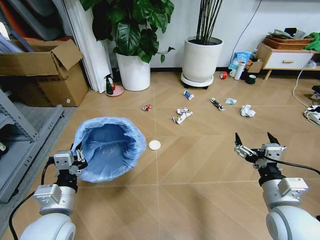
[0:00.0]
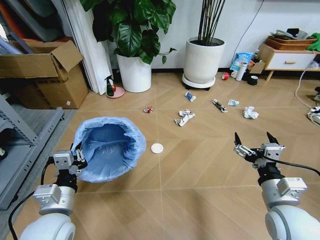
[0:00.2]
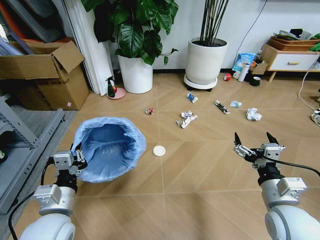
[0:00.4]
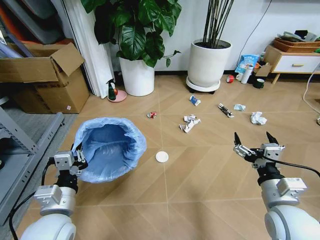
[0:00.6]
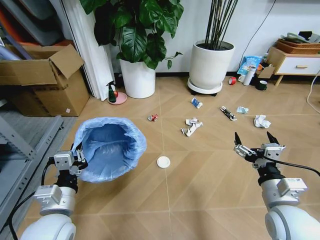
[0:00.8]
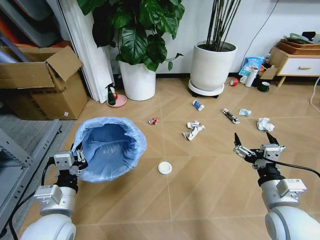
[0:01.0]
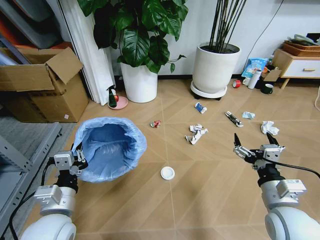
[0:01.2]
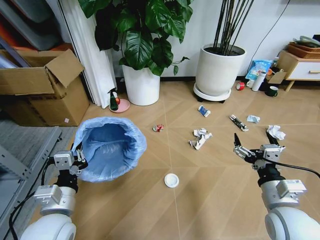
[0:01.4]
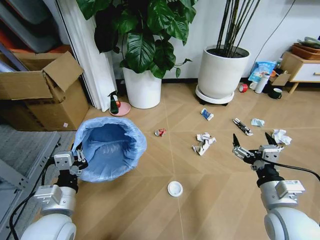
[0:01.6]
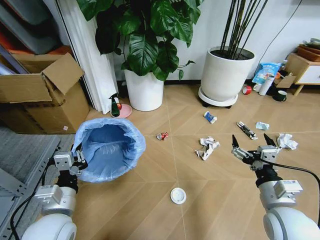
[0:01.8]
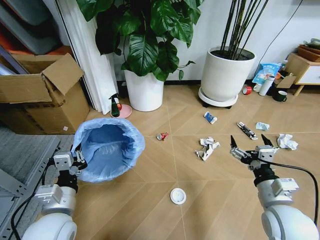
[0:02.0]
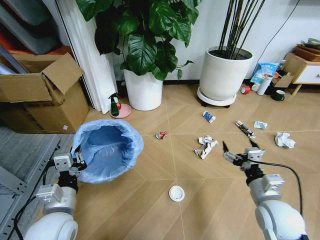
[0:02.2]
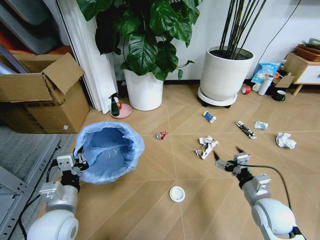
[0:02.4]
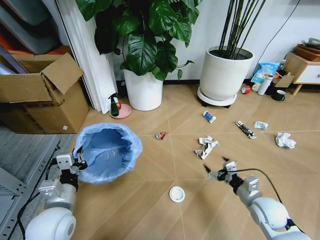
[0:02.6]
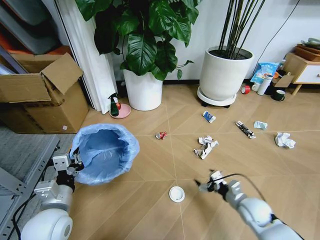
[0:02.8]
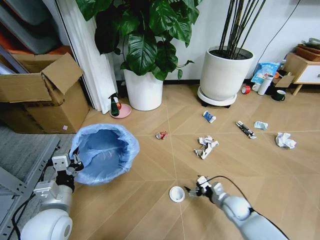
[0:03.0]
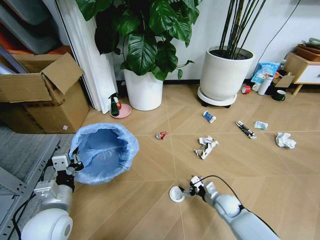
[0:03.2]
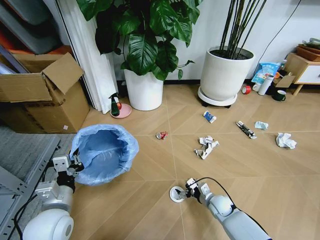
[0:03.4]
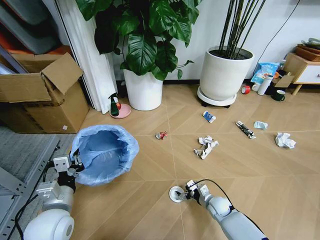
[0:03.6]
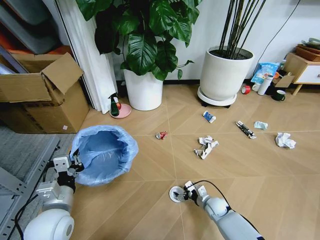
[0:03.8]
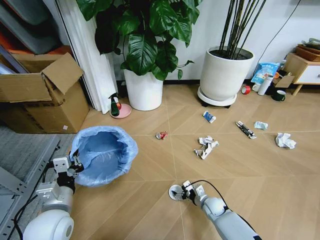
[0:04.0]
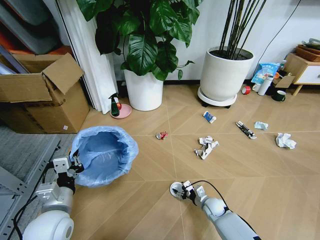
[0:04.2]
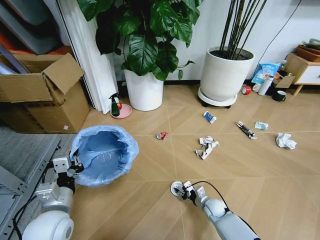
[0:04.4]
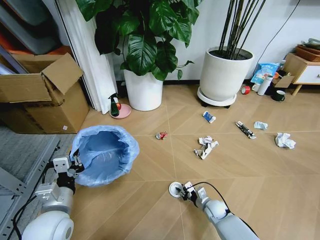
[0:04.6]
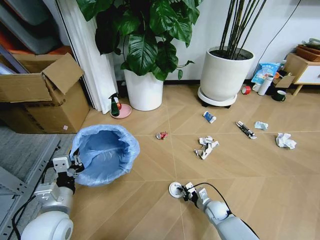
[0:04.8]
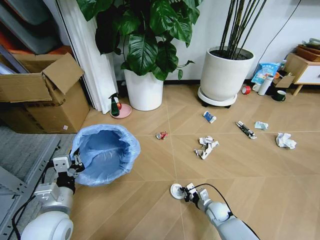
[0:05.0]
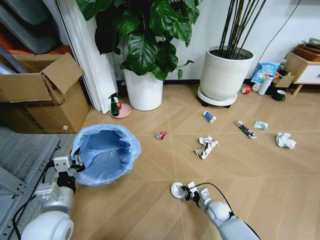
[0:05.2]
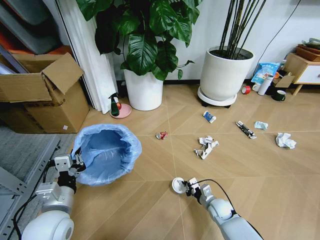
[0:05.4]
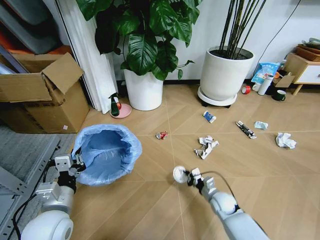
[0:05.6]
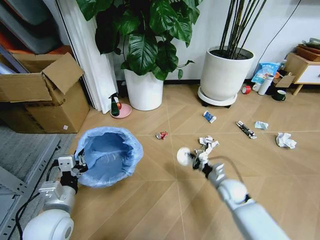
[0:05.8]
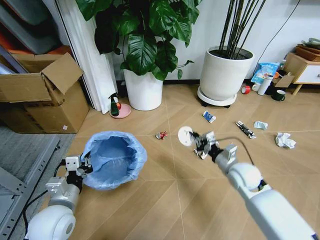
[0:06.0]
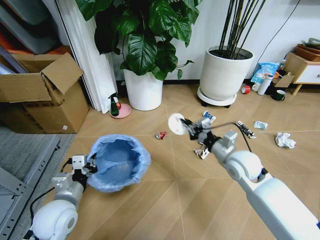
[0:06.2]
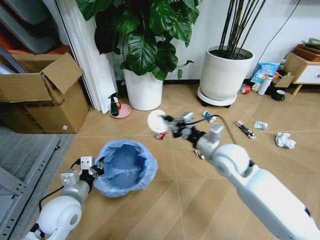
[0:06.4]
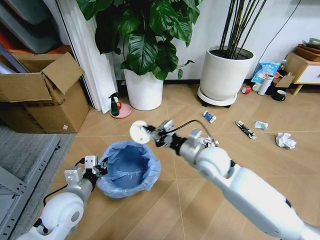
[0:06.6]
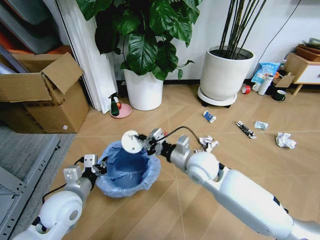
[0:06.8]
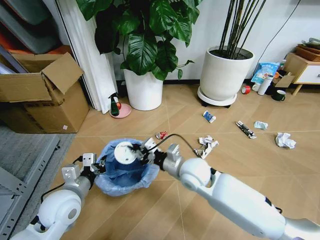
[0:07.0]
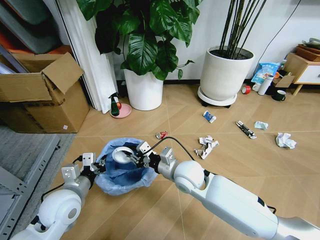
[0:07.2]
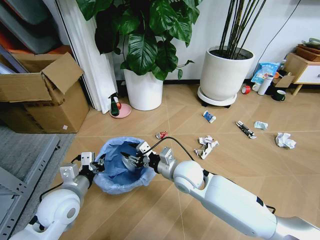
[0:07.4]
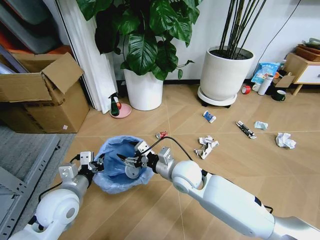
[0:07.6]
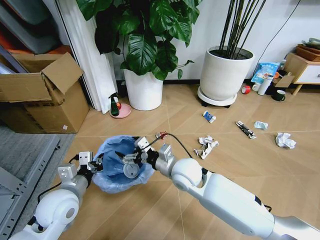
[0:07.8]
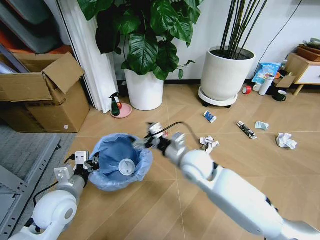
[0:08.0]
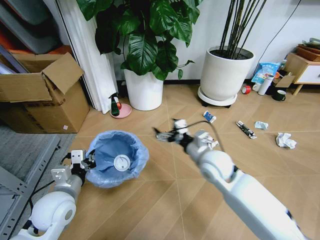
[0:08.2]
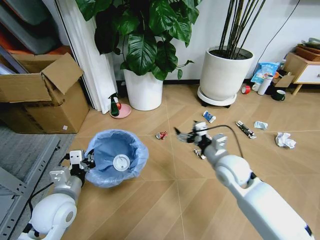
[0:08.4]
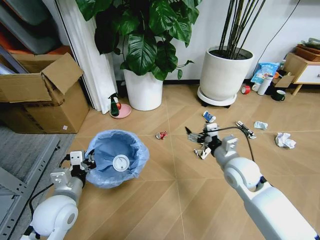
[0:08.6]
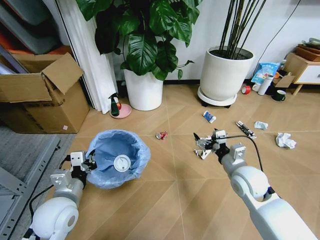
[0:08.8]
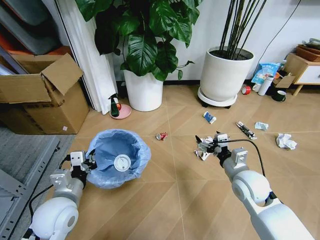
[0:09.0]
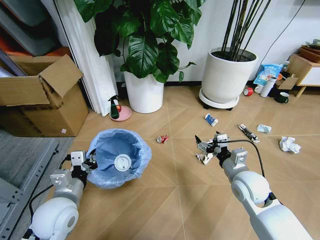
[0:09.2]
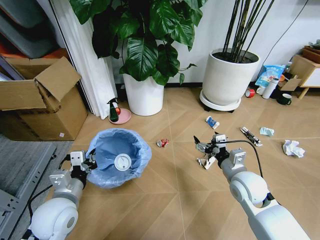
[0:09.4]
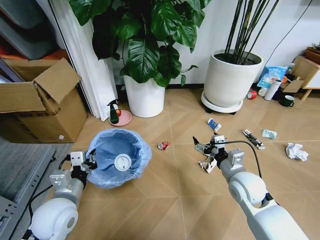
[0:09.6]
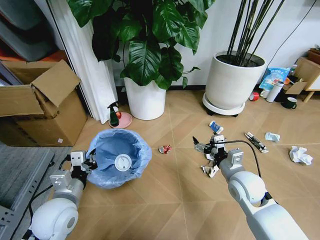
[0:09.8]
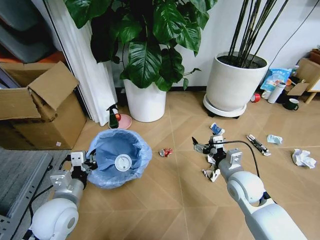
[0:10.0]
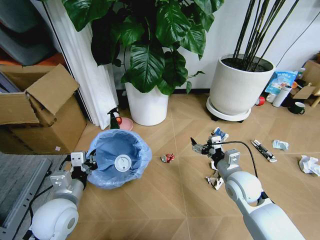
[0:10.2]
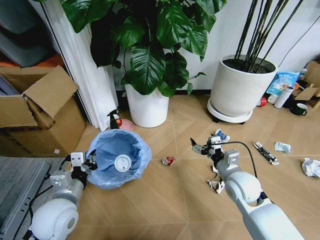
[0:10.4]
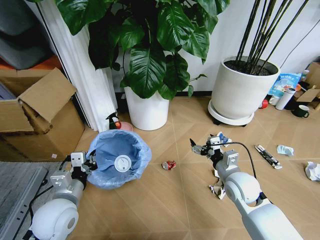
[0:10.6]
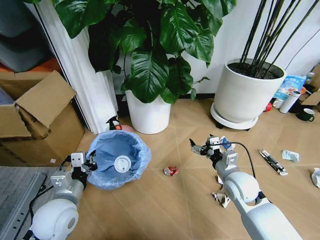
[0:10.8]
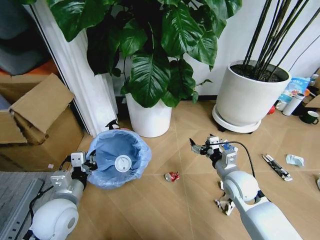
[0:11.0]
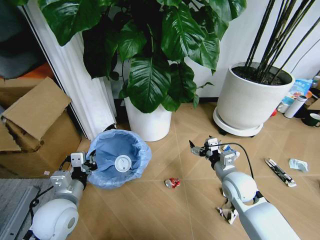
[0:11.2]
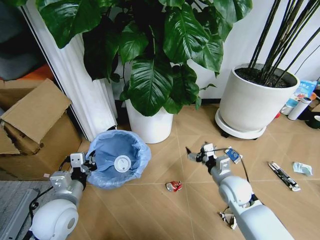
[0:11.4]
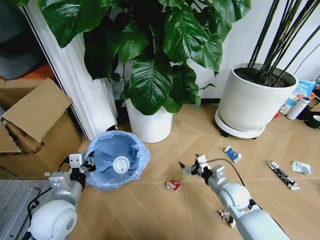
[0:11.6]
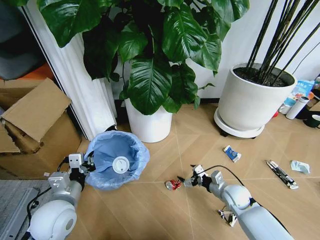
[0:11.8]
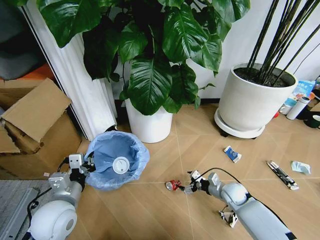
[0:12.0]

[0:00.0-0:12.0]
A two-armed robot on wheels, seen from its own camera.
Task of the whole recording: Pick up the trash bin and place the garbage on the floor into it.
0:01.6 to 0:03.0: The right gripper travels downward and forward by approximately 25 cm.
0:03.0 to 0:04.4: The right gripper travels downward and to the left by roughly 10 cm, and closes.
0:04.4 to 0:06.0: The right gripper heads upward, covering approximately 25 cm, and closes up.
0:06.0 to 0:07.6: The right gripper goes about 20 cm to the left, and opens up.
0:07.6 to 0:09.0: The right gripper is displaced to the right by approximately 20 cm.
0:10.4 to 0:12.0: The right gripper is displaced downward by roughly 15 cm.

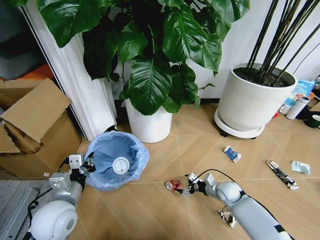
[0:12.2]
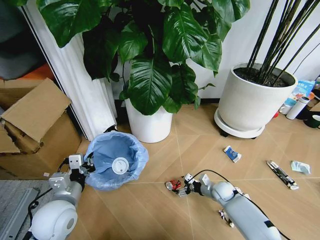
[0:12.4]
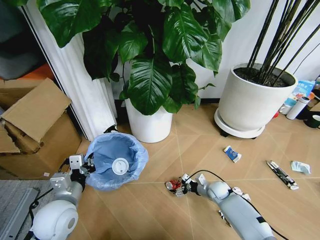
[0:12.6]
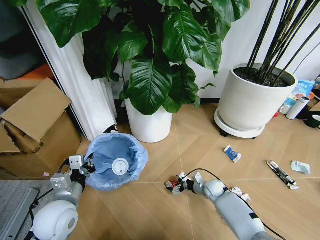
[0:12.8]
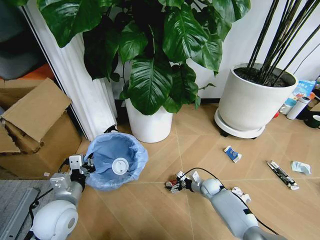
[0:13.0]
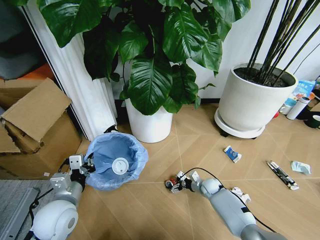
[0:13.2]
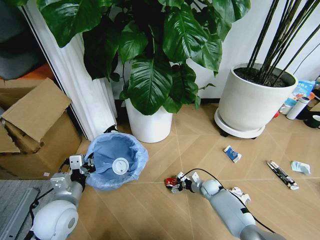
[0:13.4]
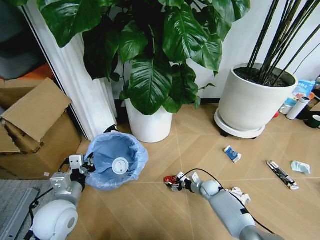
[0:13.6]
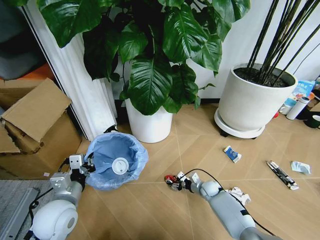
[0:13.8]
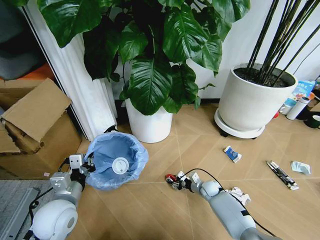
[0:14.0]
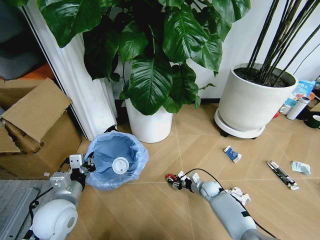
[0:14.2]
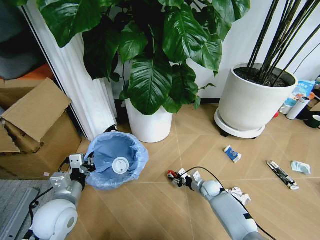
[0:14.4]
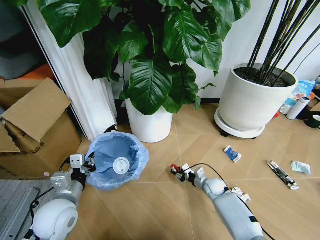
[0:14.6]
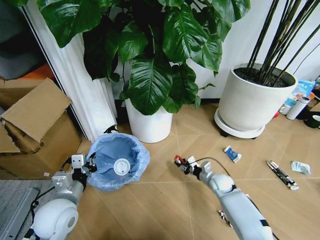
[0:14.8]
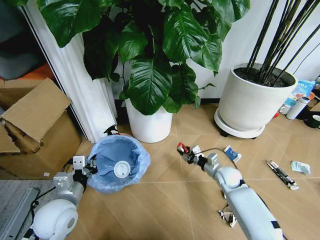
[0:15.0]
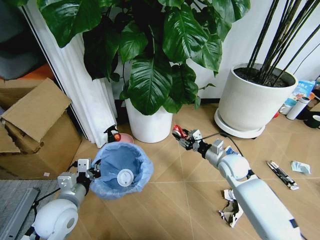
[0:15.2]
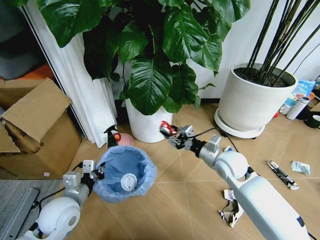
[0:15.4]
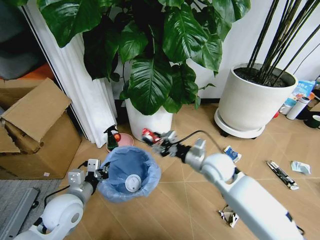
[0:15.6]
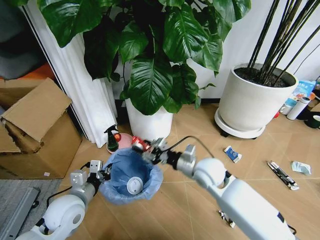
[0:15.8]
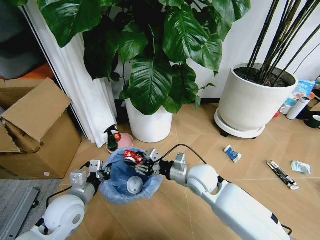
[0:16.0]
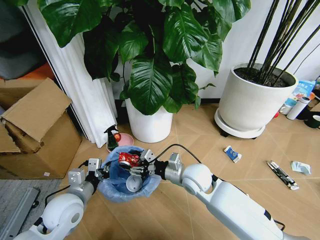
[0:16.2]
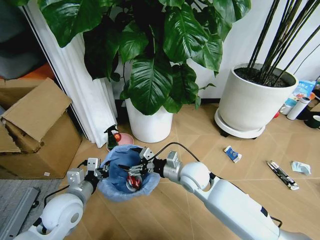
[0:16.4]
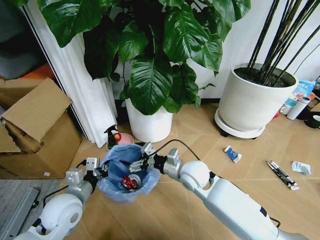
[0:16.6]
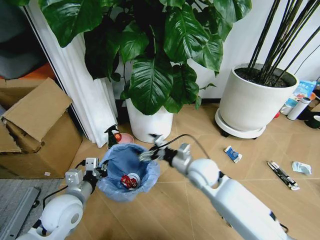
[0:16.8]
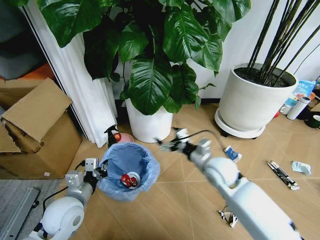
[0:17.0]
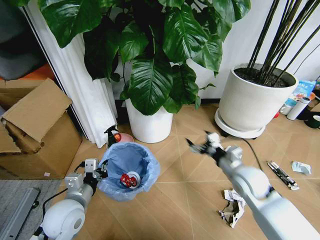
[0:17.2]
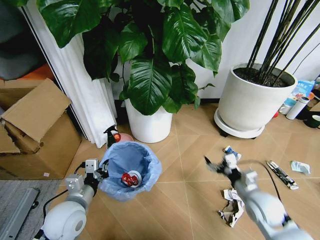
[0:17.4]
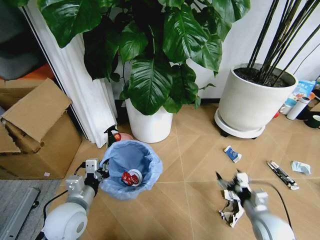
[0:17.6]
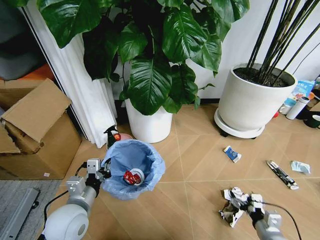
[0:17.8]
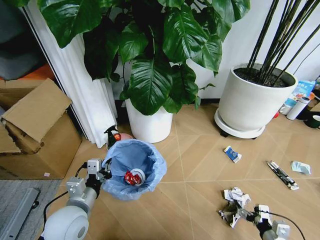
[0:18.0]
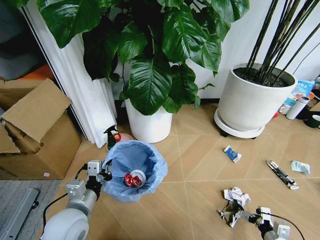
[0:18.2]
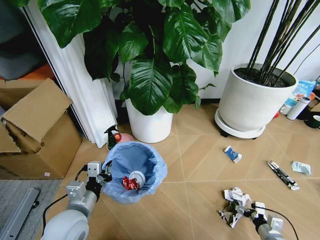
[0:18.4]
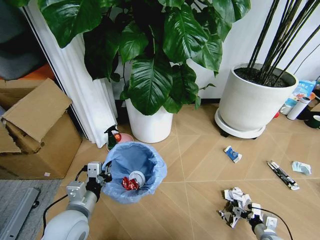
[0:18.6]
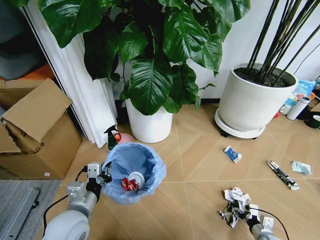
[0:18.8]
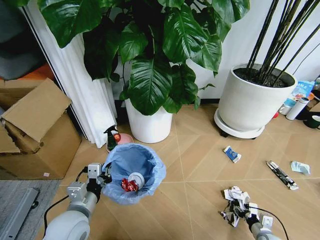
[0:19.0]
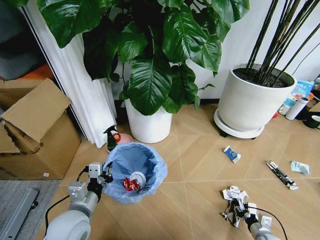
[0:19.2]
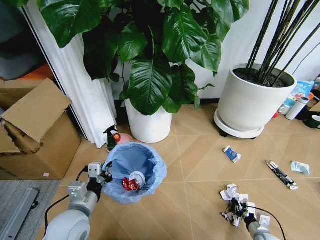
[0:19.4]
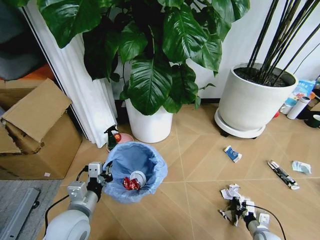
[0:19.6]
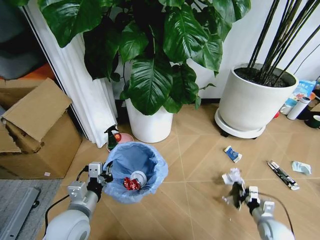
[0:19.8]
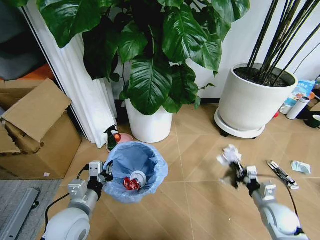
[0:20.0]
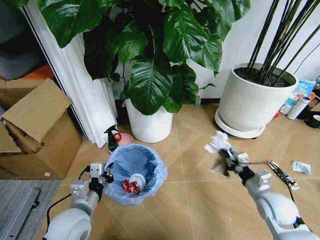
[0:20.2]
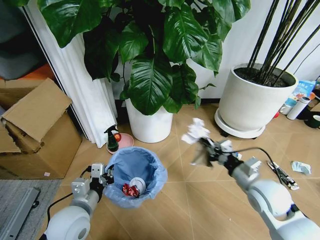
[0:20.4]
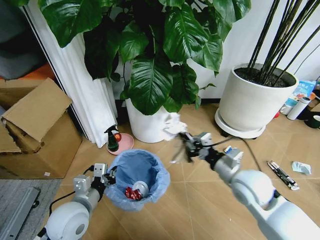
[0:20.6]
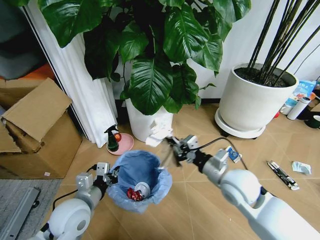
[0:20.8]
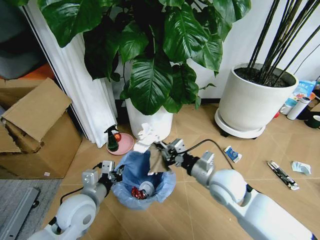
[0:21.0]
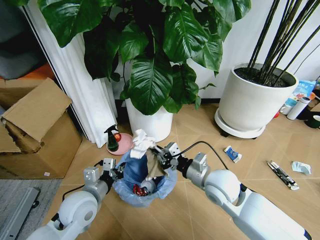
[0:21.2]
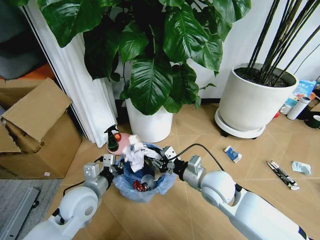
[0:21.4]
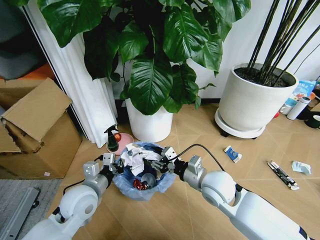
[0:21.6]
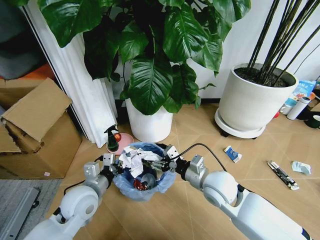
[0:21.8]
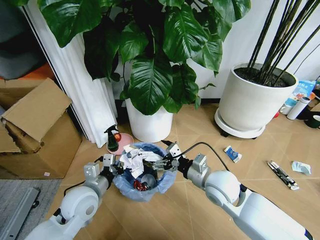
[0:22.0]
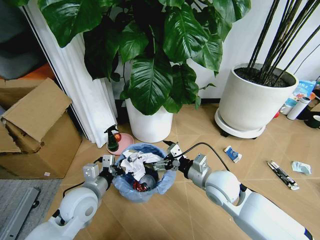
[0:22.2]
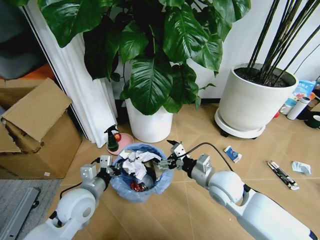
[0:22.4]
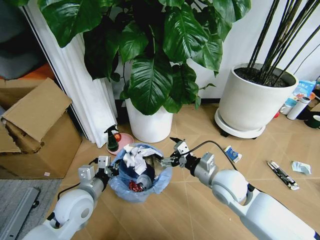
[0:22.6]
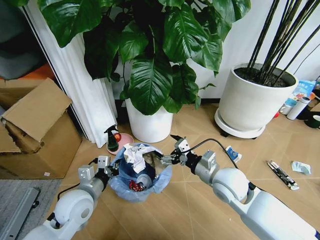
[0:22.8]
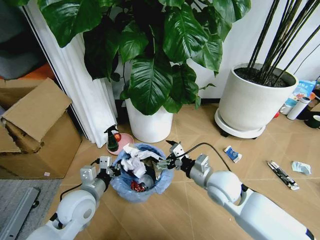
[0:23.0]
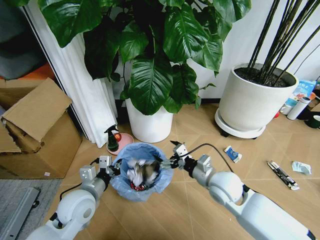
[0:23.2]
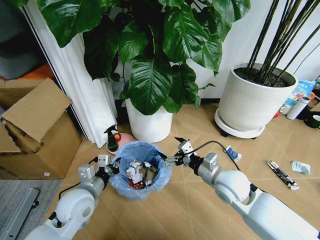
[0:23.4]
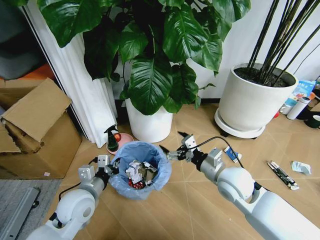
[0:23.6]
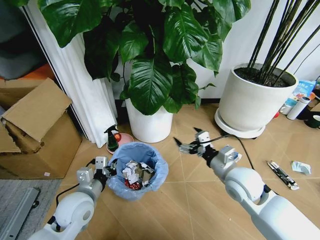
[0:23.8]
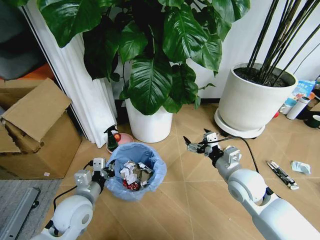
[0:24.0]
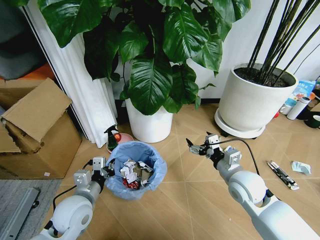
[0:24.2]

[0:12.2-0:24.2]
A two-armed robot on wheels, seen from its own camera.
Task of the whole recording: Pick up the trash bin and place the garbage on the floor into it.
0:12.2 to 0:13.8: The right gripper shifts some 10 cm downward and to the left, and closes.
0:13.8 to 0:15.2: The right gripper moves upward, about 20 cm.
0:15.2 to 0:16.6: The right gripper shifts about 20 cm to the left and upward, and opens up.
0:16.6 to 0:18.2: The left gripper changes place by approximately 5 cm. Meanwhile the right gripper goes some 40 cm to the right, backward and downward.
0:18.2 to 0:19.8: The right gripper moves forward, approximately 10 cm, and closes up.
0:19.8 to 0:21.2: The right gripper is displaced to the left and upward by roughly 35 cm.
0:21.2 to 0:22.6: The right gripper opens its fingers.
0:22.6 to 0:24.2: The right gripper heads to the right, covering roughly 5 cm.
